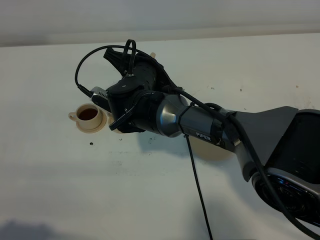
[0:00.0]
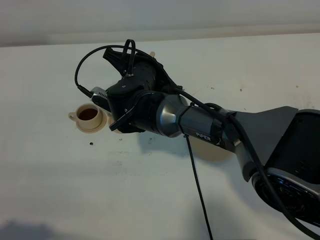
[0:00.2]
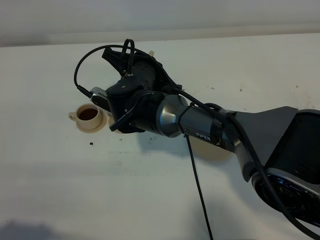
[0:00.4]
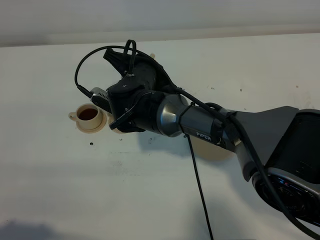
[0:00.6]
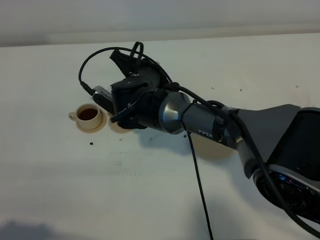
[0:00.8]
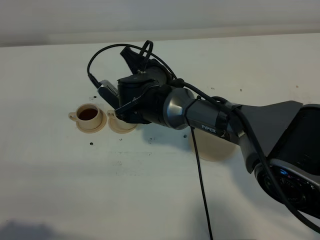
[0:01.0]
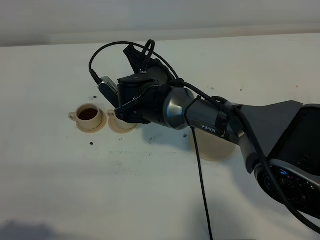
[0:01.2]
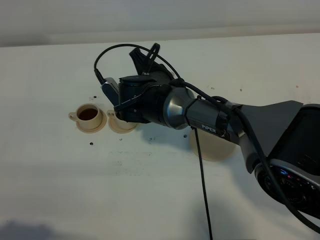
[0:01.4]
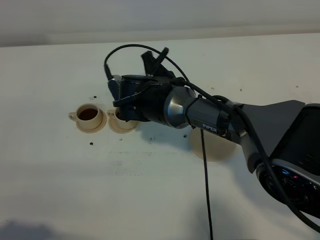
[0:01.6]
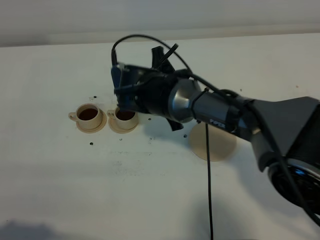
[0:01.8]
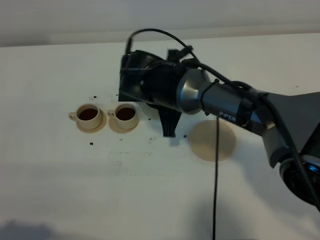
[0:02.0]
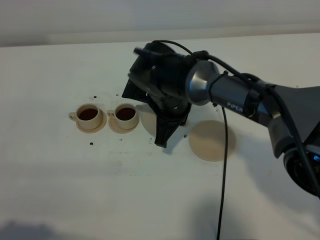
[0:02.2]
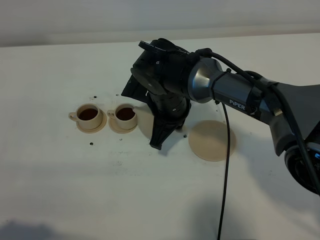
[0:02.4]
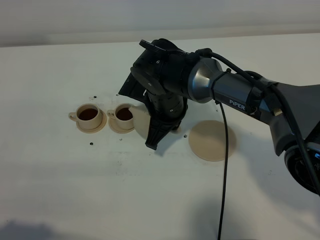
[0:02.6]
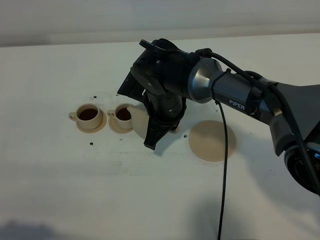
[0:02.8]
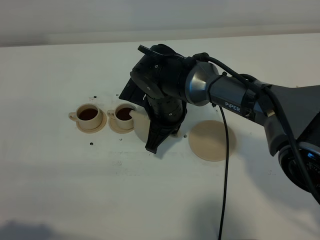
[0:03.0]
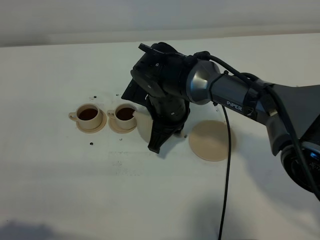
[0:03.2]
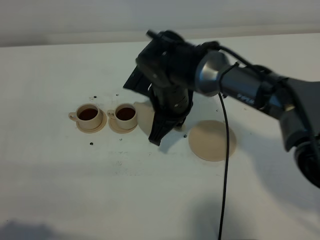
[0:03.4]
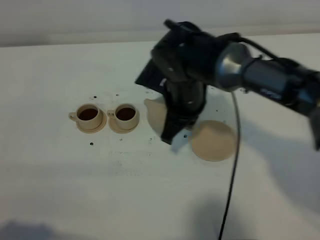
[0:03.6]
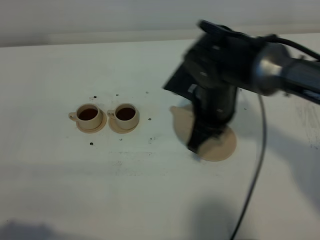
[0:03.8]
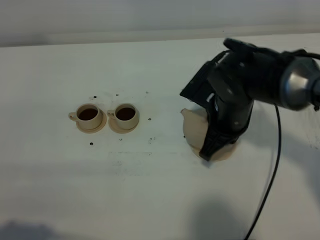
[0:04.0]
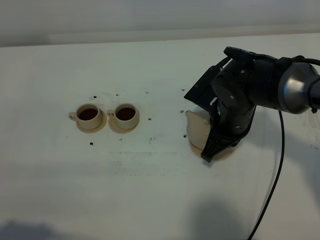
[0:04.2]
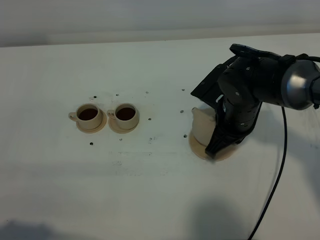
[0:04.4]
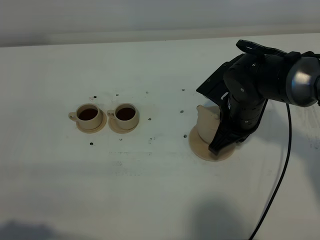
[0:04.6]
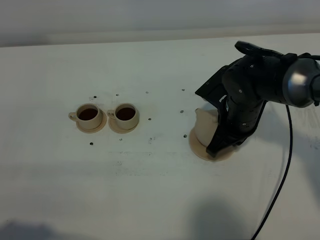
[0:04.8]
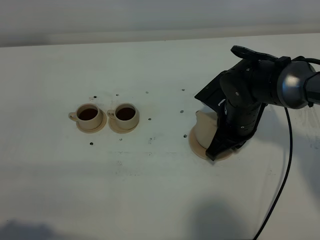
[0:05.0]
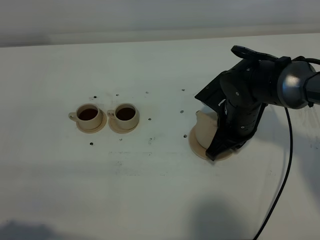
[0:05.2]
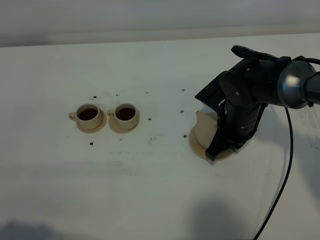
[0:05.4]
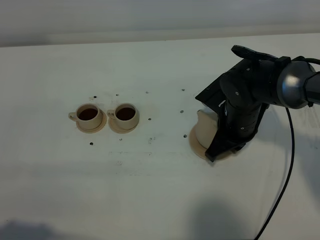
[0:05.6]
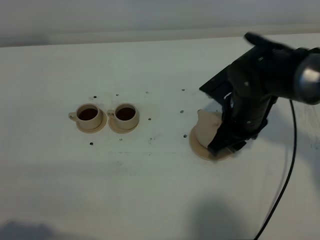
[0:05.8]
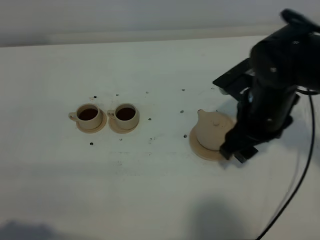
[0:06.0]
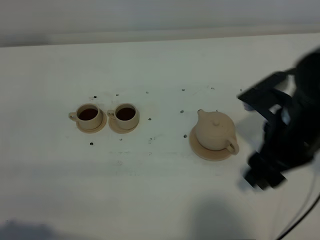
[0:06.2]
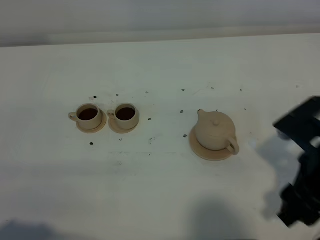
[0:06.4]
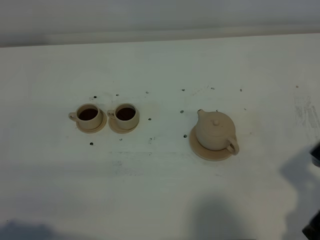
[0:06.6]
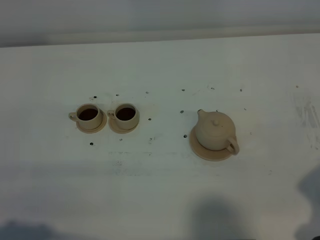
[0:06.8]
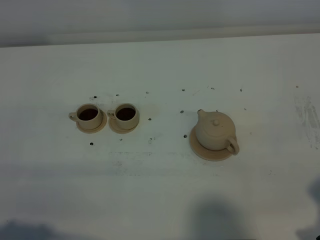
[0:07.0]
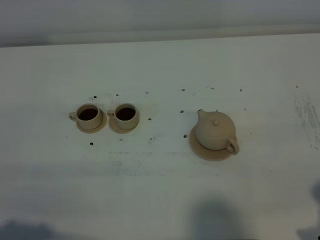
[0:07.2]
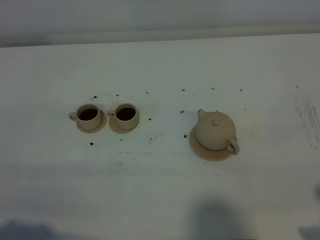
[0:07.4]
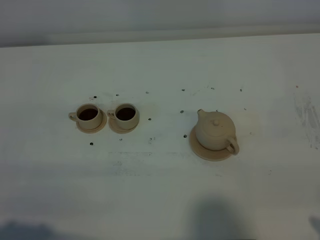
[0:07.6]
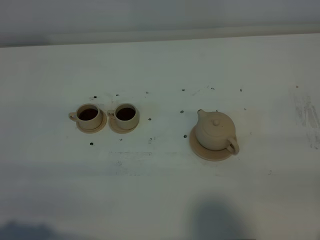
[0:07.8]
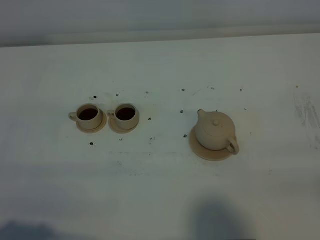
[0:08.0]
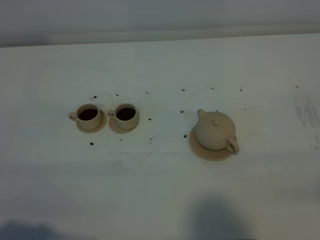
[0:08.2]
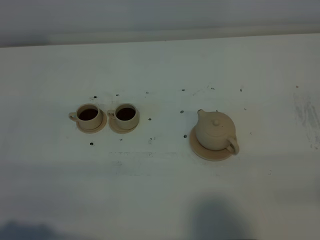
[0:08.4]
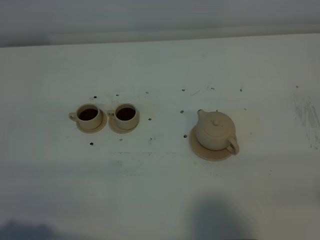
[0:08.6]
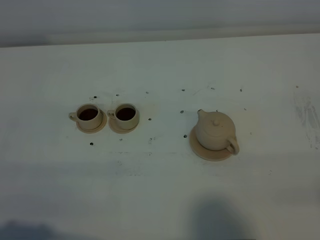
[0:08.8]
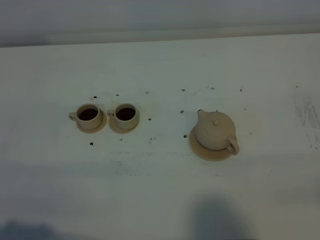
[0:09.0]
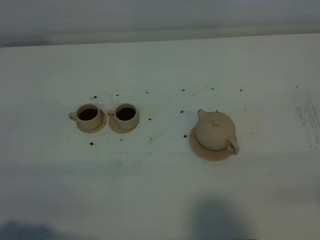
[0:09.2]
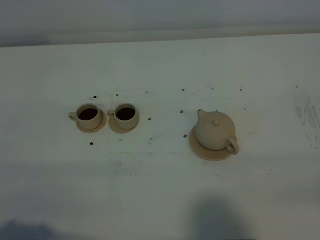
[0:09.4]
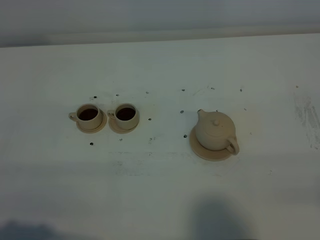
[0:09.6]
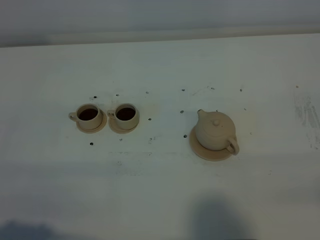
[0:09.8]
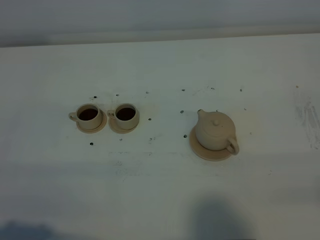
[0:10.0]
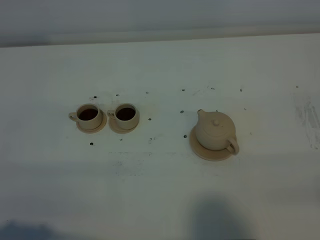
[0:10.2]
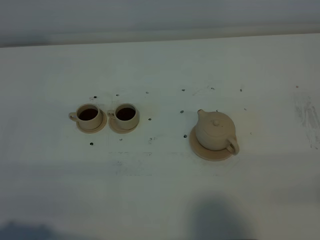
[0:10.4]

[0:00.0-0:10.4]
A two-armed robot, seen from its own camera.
Task of the whole recording: grasp the brown teapot and pour the tea into the two brown teacups one by one, put the brown teapot back in its original place.
0:03.0 to 0:04.4: The right gripper heads to the right, covering some 15 cm.
0:04.4 to 0:06.0: The right gripper moves upward, about 5 cm, and opens up.
0:06.0 to 0:07.4: The right gripper goes some 25 cm backward and to the right.
0:09.0 to 0:10.4: Both grippers stay about where they are.

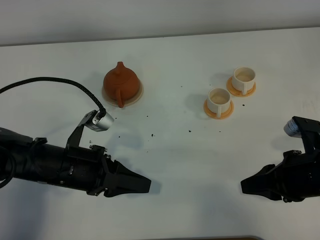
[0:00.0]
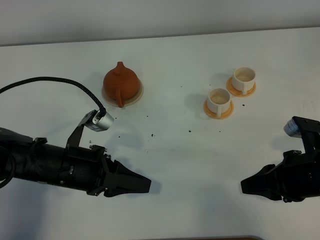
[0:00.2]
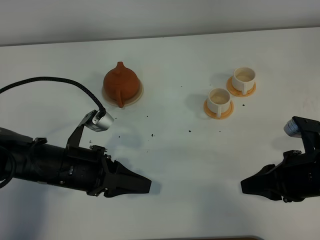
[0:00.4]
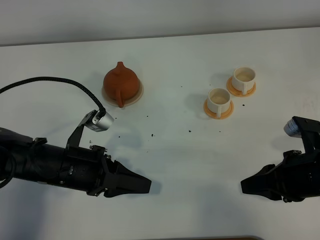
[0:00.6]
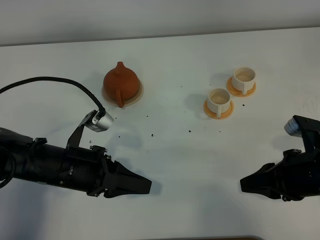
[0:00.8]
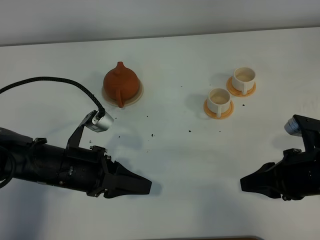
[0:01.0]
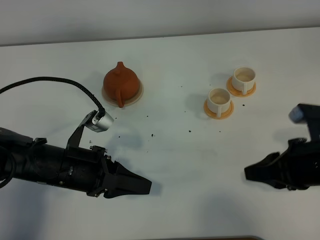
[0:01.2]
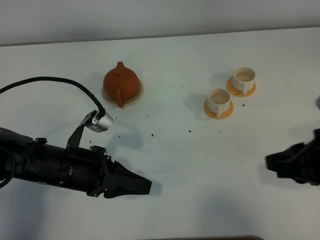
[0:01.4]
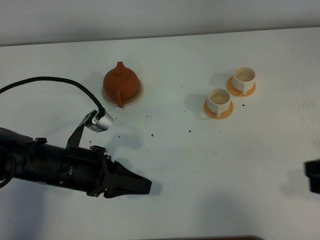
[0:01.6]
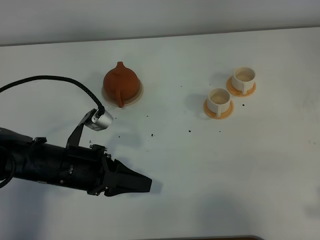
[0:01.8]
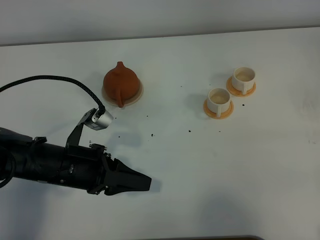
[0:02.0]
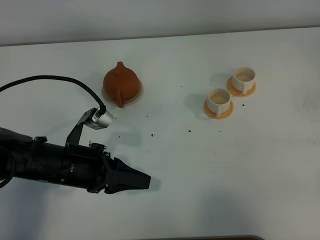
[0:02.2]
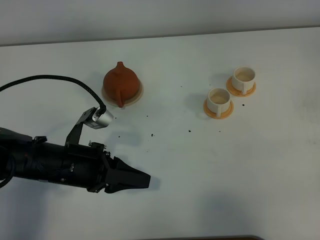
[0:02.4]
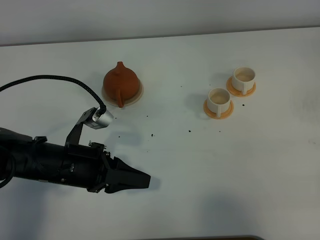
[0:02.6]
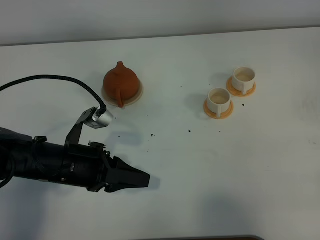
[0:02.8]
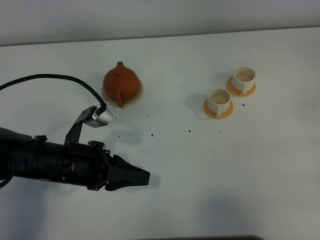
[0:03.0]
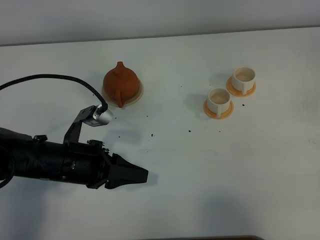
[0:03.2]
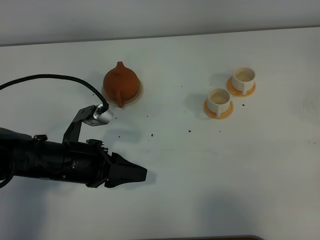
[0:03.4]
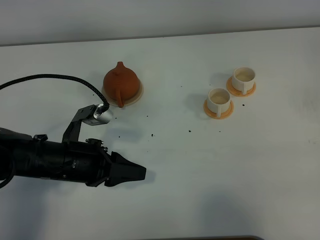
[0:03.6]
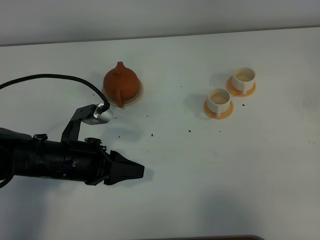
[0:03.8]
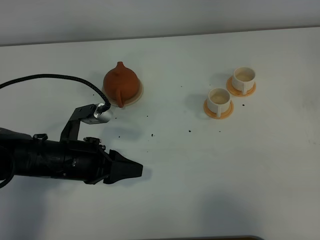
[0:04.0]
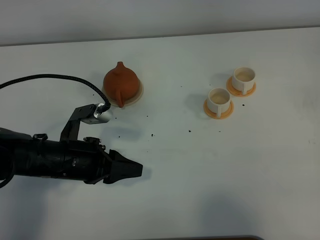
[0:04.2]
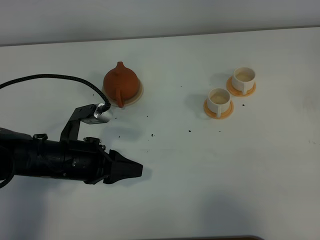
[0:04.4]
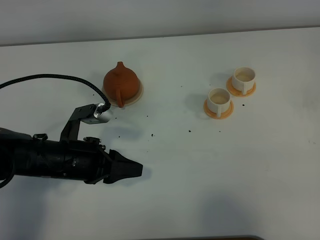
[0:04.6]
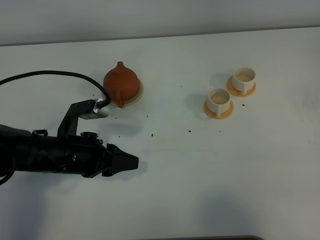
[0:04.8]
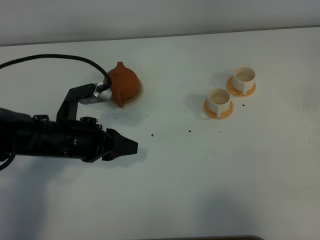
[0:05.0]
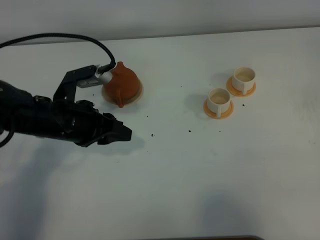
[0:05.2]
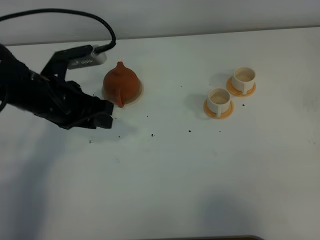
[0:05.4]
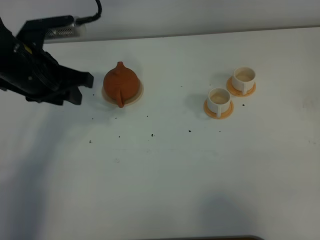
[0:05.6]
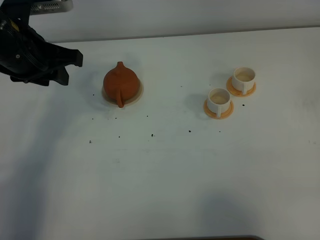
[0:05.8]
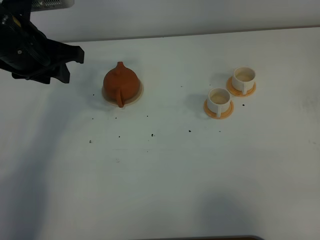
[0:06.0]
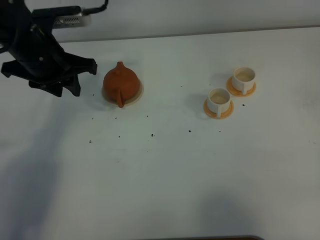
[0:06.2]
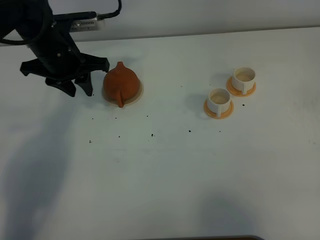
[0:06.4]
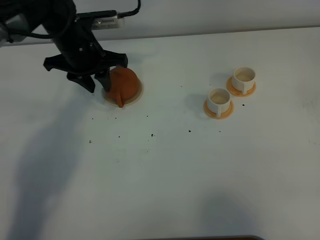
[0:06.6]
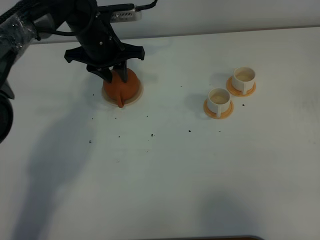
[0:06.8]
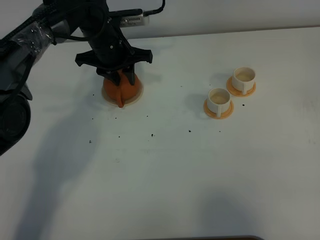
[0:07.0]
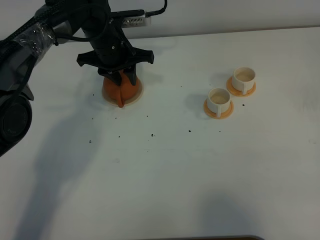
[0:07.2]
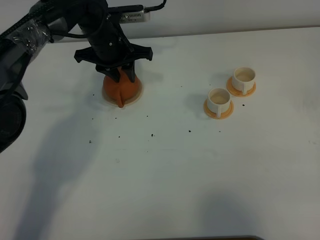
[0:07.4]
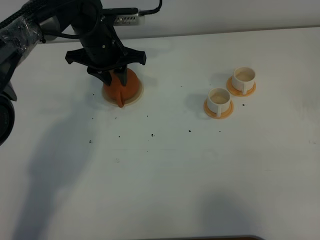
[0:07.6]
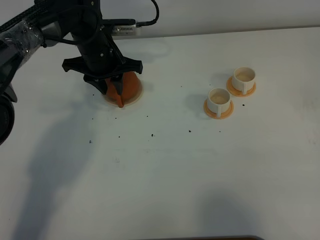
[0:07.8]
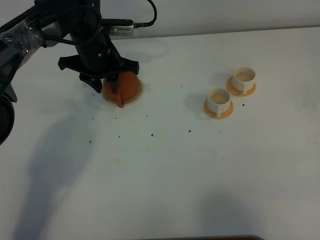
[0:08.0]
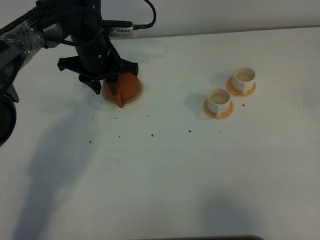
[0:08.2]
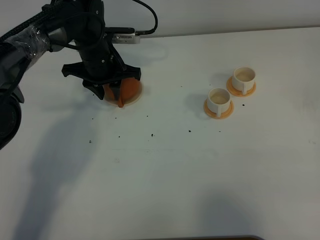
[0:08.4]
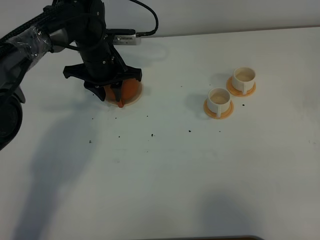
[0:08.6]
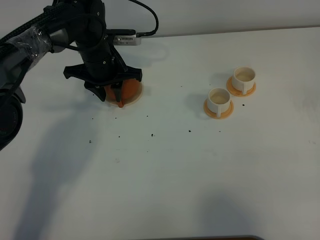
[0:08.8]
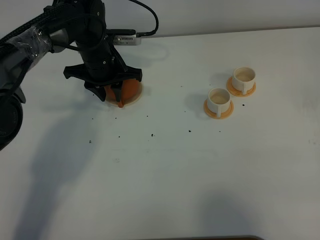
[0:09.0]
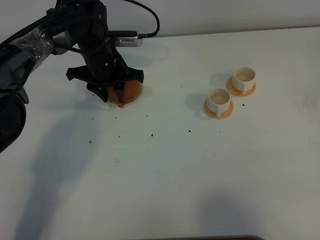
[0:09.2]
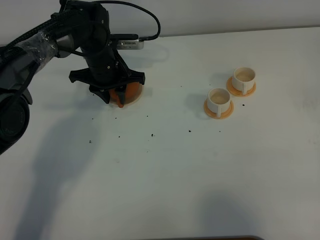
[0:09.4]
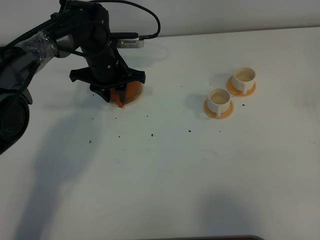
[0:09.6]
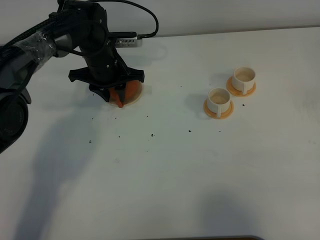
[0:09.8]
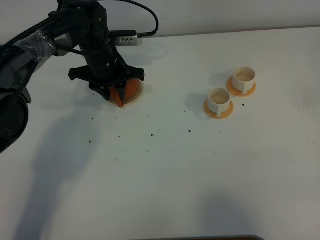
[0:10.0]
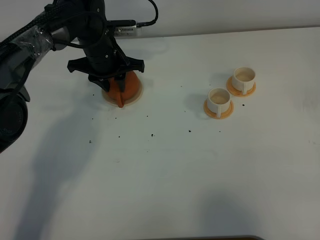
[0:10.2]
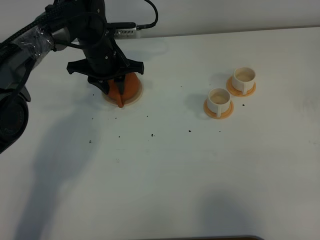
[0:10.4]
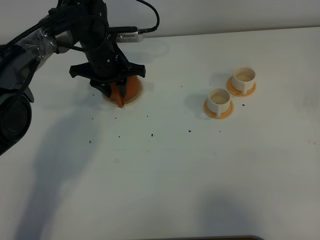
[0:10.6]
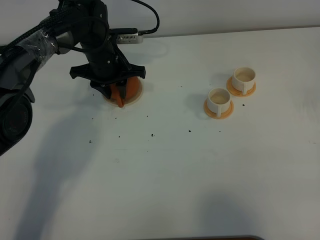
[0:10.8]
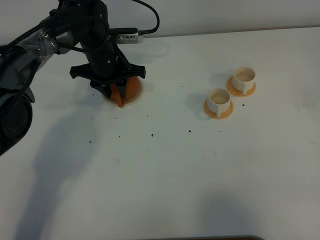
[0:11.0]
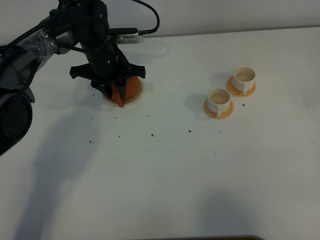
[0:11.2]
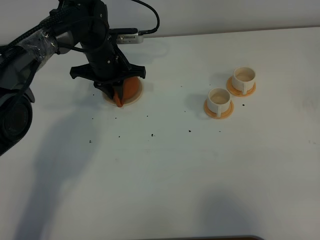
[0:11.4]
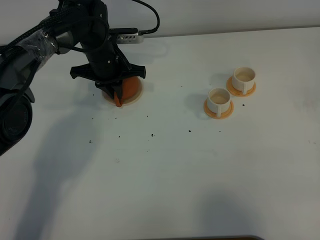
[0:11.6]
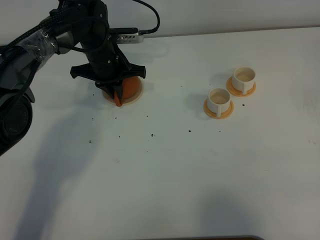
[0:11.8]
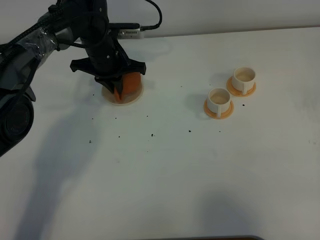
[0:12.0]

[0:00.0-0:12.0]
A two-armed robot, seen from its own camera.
Task of the whole recording: grasp the brown teapot and pour the tea into the two white teacups one by one, put the brown teapot back in its original place.
0:00.0 to 0:01.6: The right gripper moves upward and backward, about 10 cm, and closes up.
0:01.6 to 0:03.0: The right gripper travels backward and to the right by some 10 cm.
0:04.4 to 0:06.0: The right gripper opens. The left gripper shifts some 20 cm upward and forward.
0:06.0 to 0:07.6: The left gripper moves forward, downward and to the right, approximately 15 cm.
0:07.6 to 0:10.4: The grippers make only small movements.
0:10.4 to 0:12.0: The left gripper closes.
